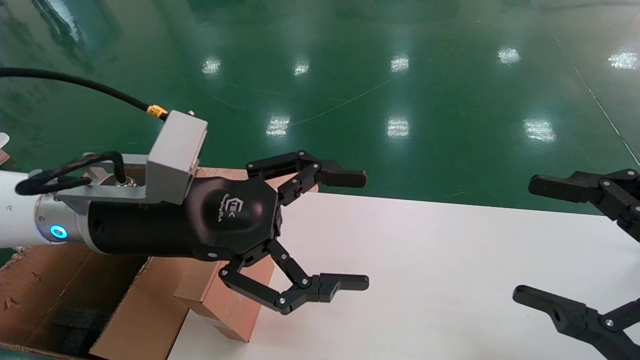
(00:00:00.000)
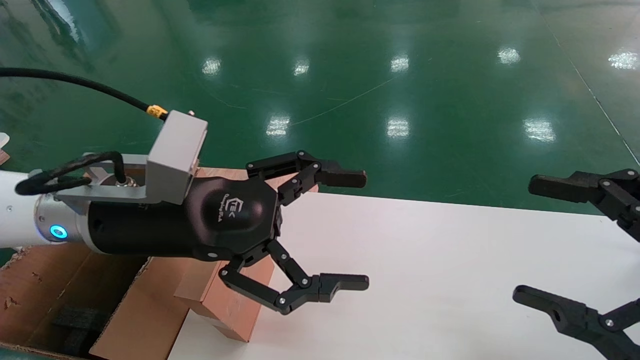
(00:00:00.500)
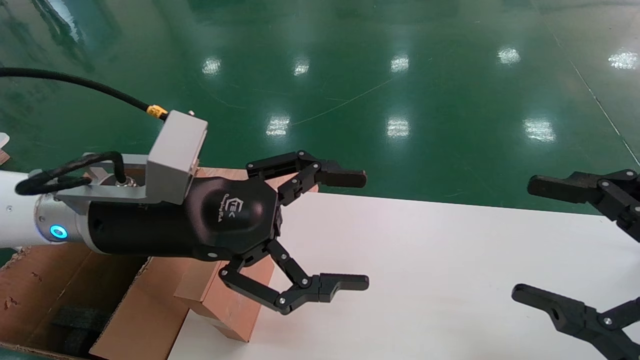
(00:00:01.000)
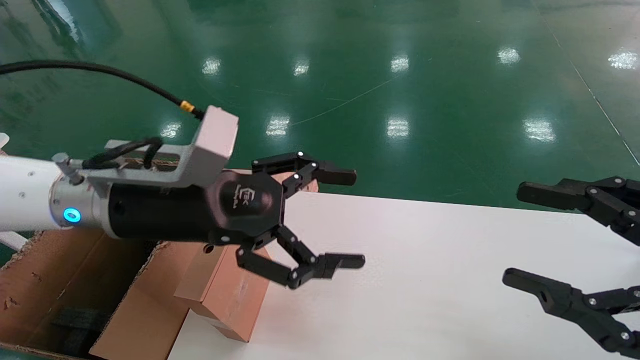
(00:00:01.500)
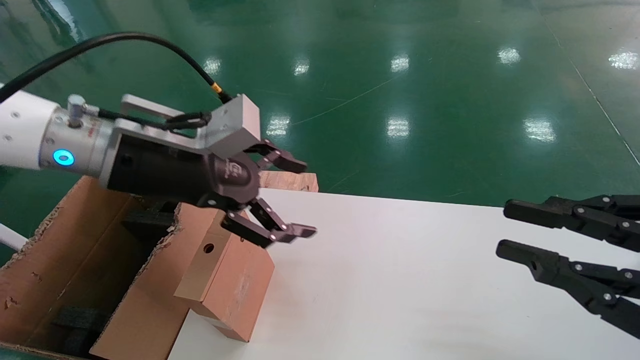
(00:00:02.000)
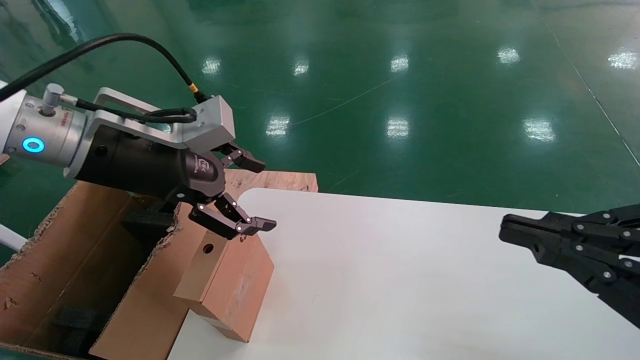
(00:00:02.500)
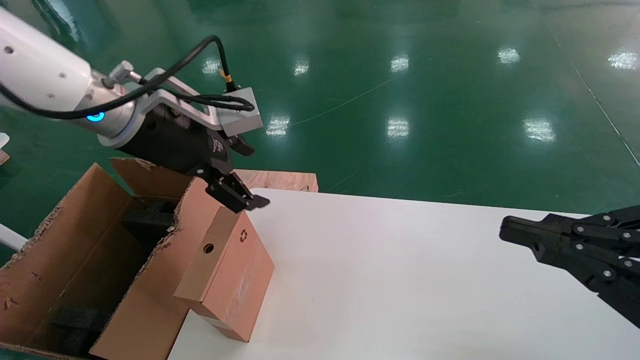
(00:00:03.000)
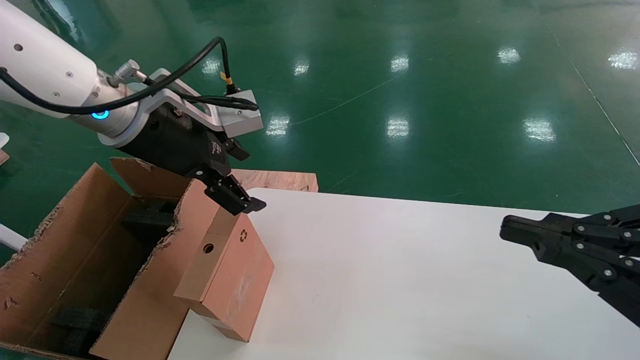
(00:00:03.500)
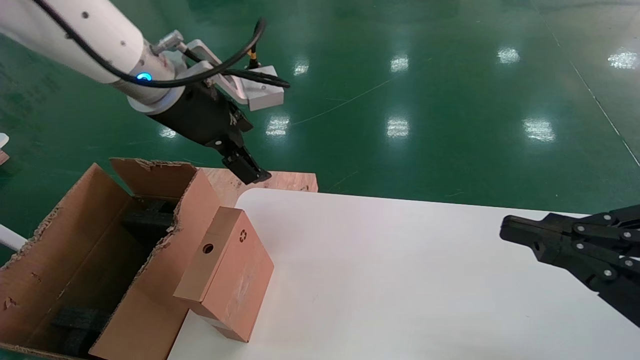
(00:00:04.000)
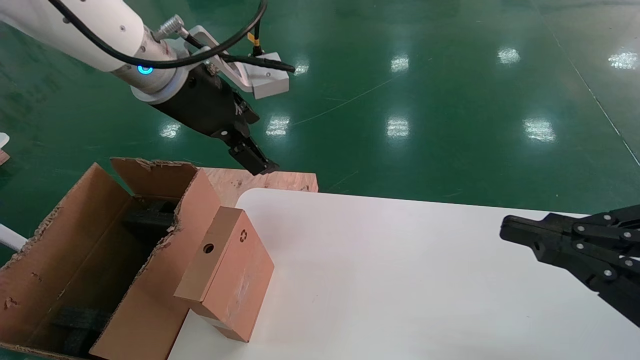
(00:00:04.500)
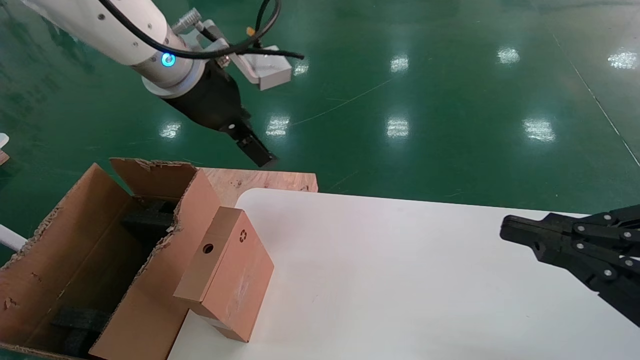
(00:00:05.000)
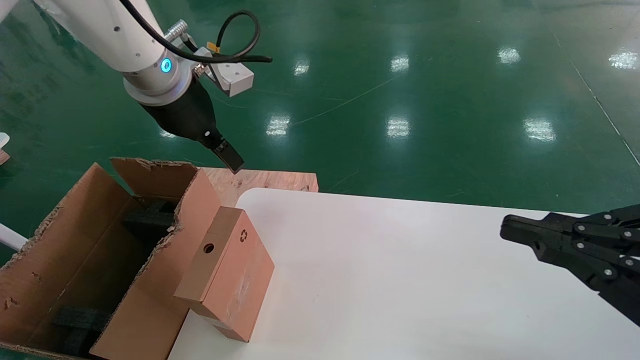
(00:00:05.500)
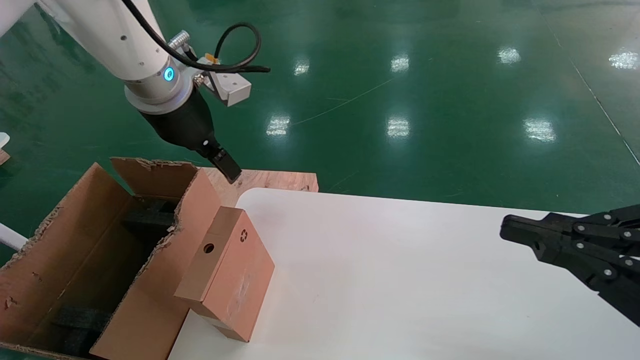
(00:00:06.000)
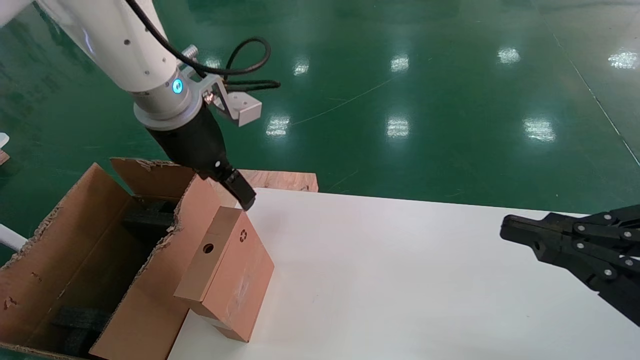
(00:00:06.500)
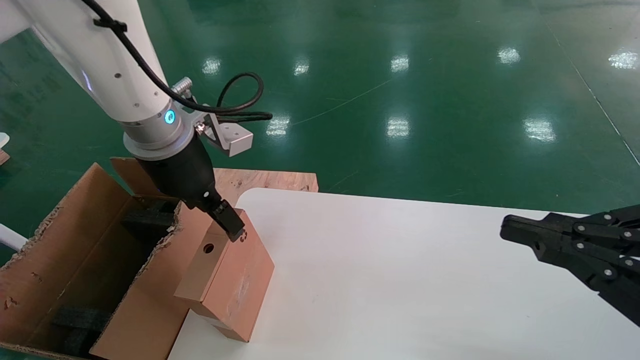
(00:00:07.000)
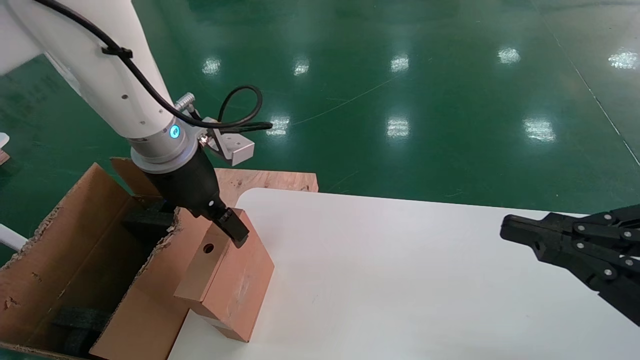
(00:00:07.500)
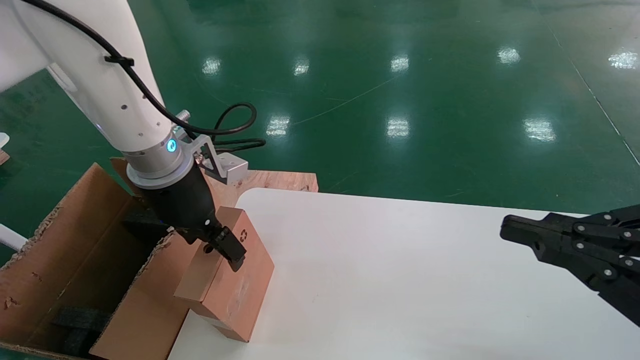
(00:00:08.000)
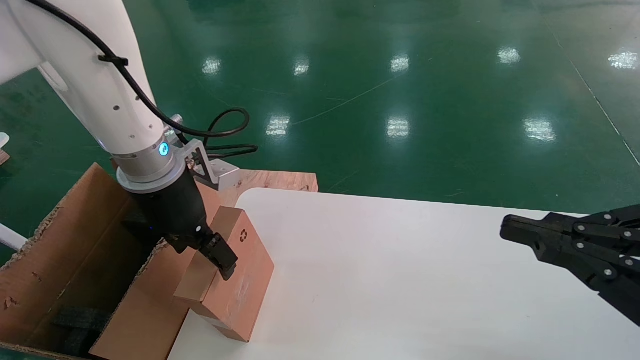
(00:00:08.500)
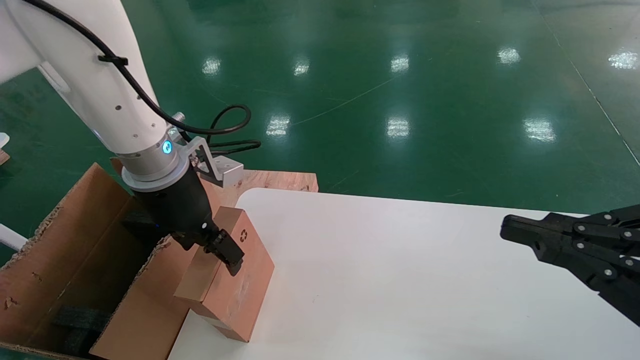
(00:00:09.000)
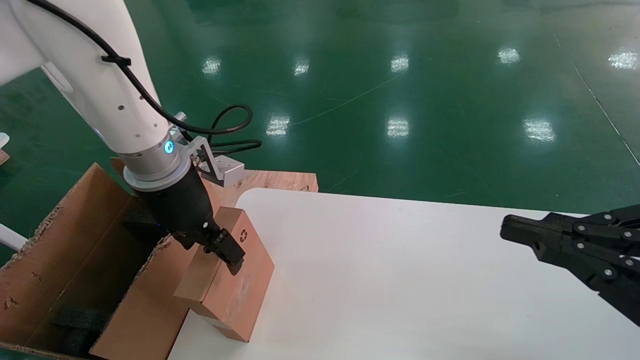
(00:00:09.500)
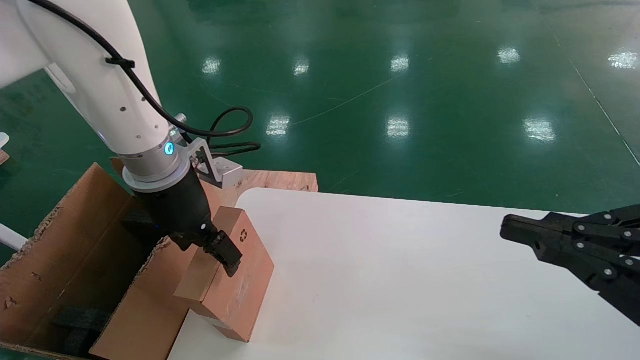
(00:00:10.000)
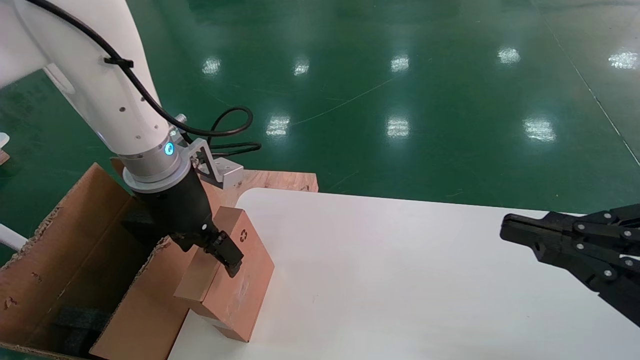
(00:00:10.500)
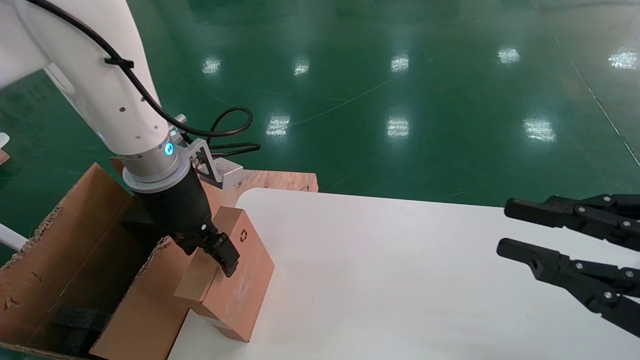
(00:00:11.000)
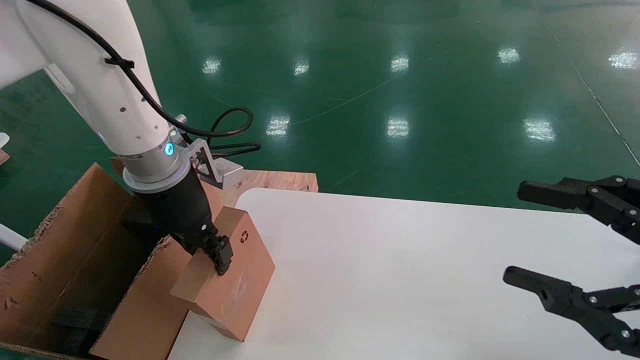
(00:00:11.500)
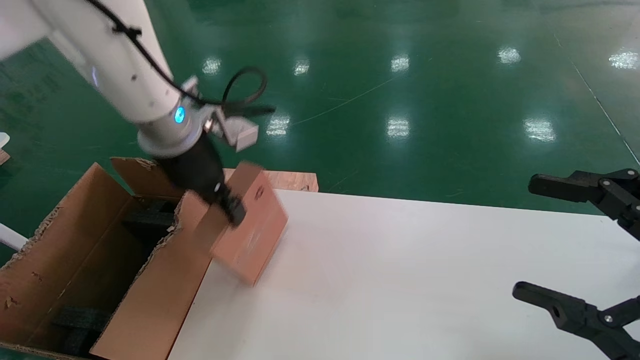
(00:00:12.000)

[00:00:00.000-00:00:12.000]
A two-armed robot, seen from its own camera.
Task of the whole recording: place the small box on the table into the large box on the left.
Step, 00:00:02.000 to 00:00:11.500: Pick up the mouse and the power cord paper box.
00:00:00.000 to 00:00:02.000: The left gripper shifts by roughly 5 cm. Meanwhile the right gripper closes.
00:00:02.000 to 00:00:04.000: The right gripper closes up. Meanwhile the left gripper goes approximately 10 cm upward and forward.
00:00:06.000 to 00:00:08.000: The left gripper moves downward, approximately 10 cm.
00:00:08.000 to 00:00:10.000: Neither gripper changes place.
00:00:10.000 to 00:00:12.000: The left gripper goes approximately 5 cm upward, and closes up; the right gripper opens its fingers.

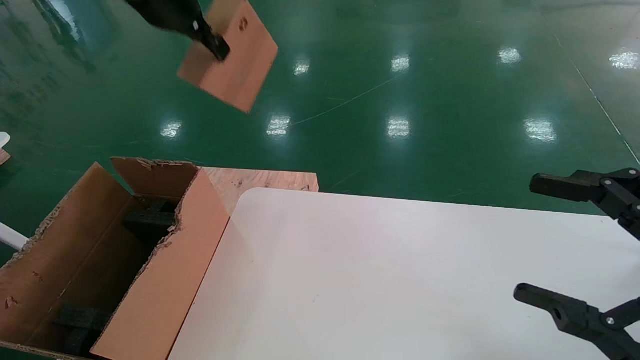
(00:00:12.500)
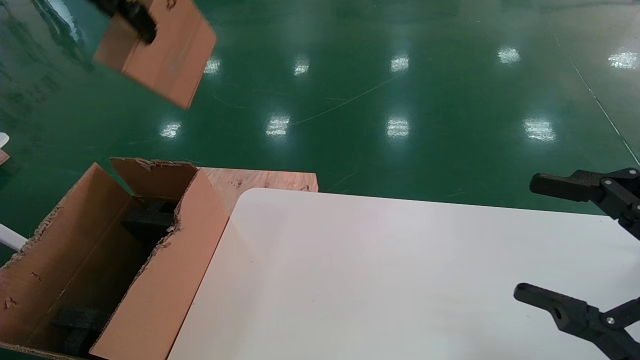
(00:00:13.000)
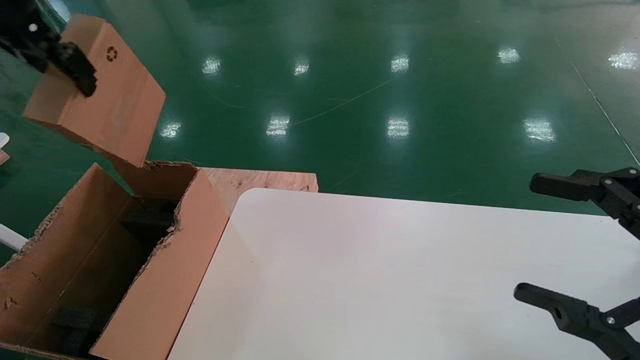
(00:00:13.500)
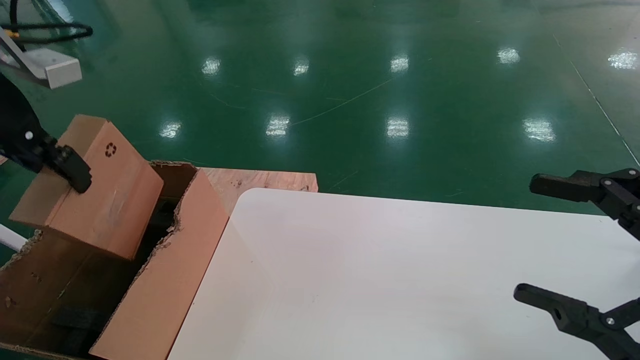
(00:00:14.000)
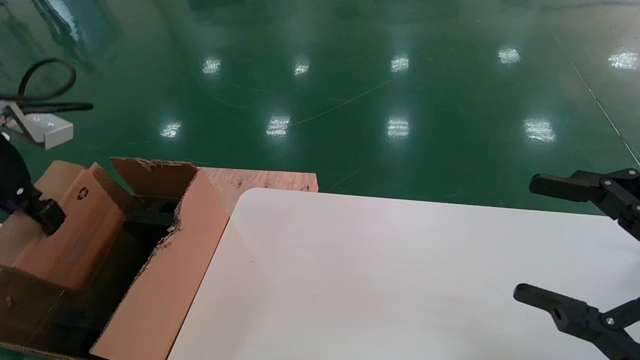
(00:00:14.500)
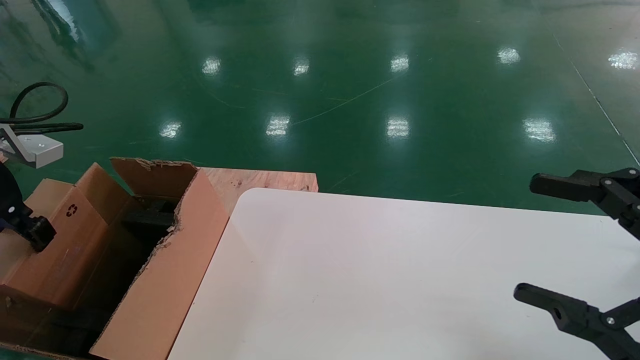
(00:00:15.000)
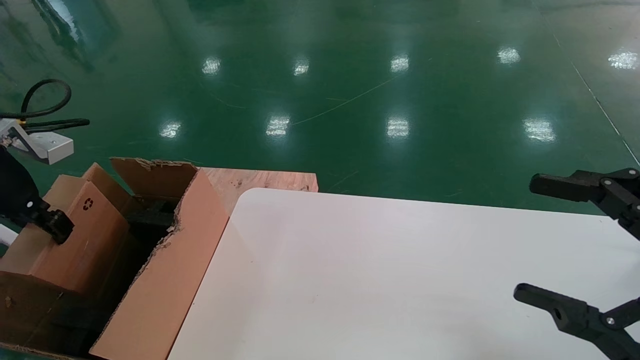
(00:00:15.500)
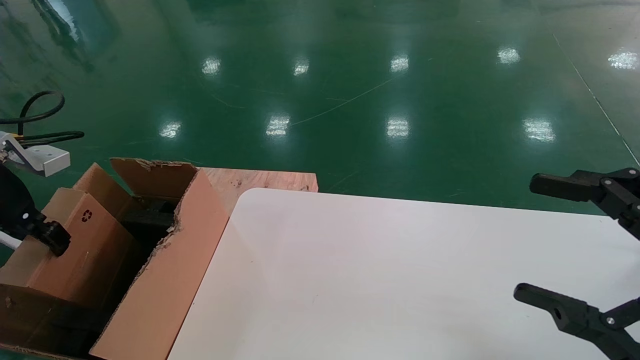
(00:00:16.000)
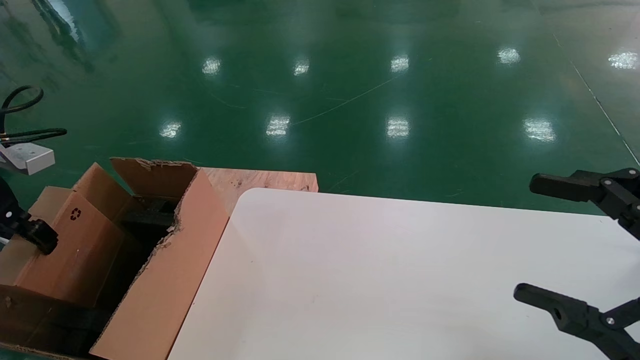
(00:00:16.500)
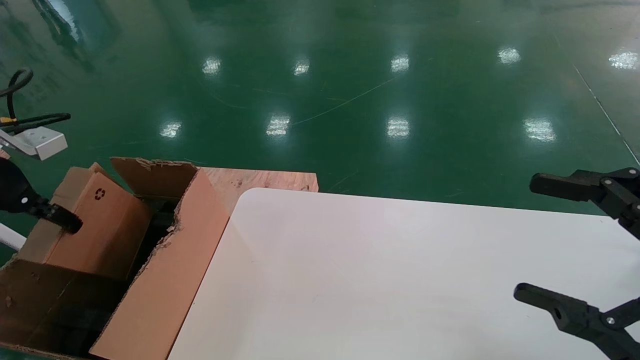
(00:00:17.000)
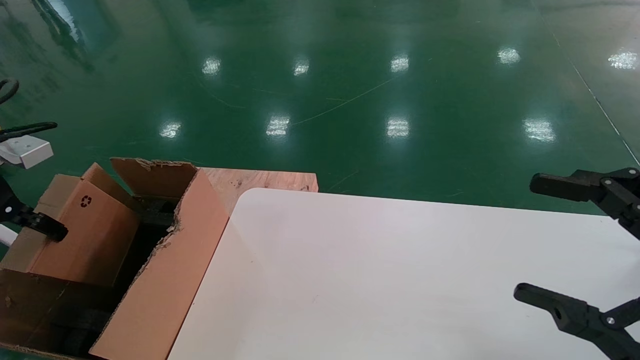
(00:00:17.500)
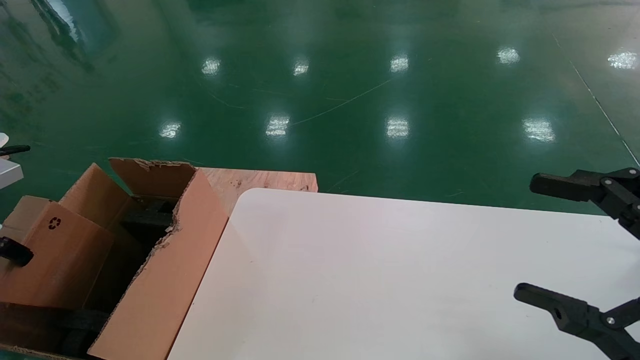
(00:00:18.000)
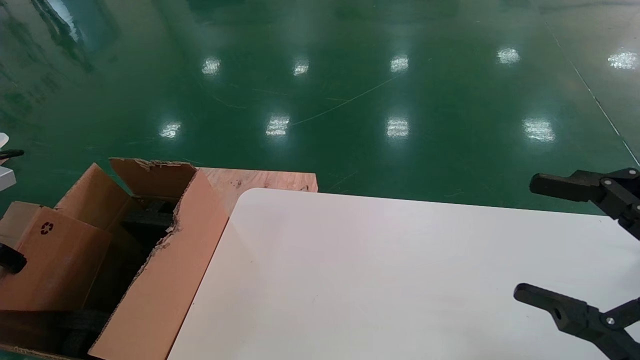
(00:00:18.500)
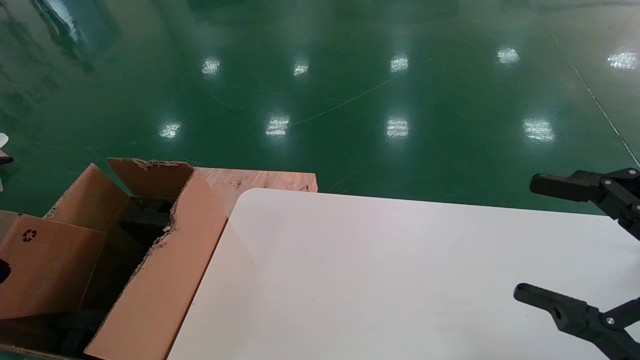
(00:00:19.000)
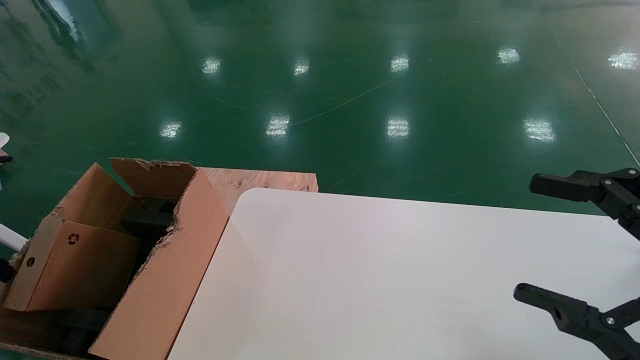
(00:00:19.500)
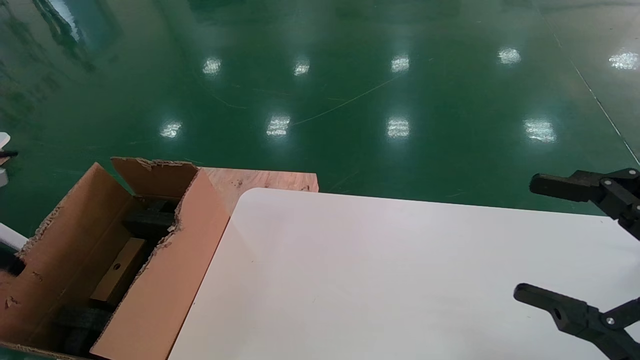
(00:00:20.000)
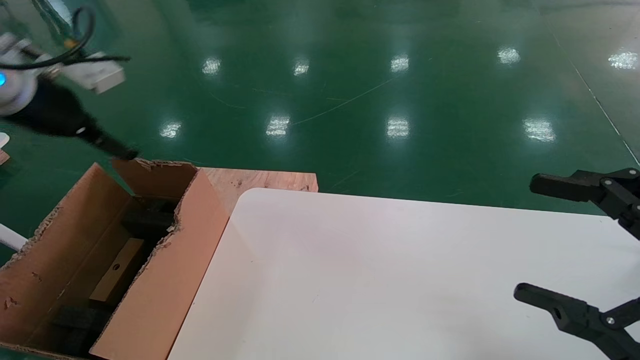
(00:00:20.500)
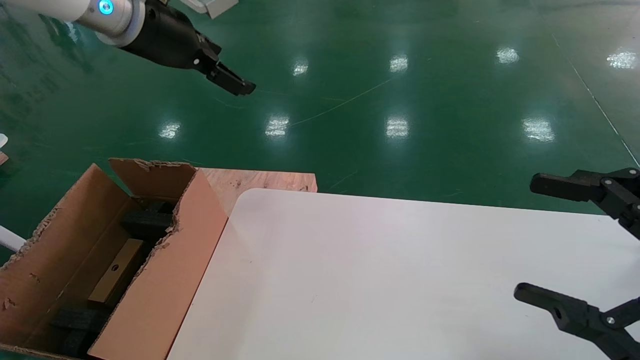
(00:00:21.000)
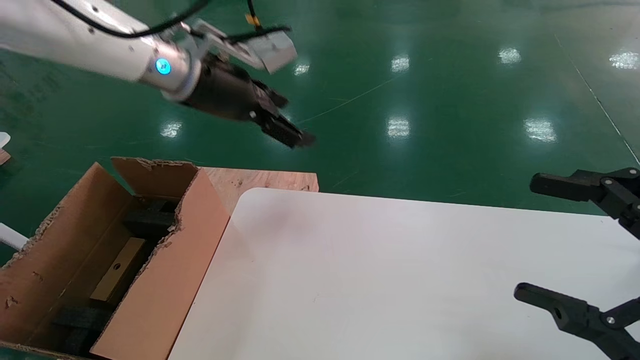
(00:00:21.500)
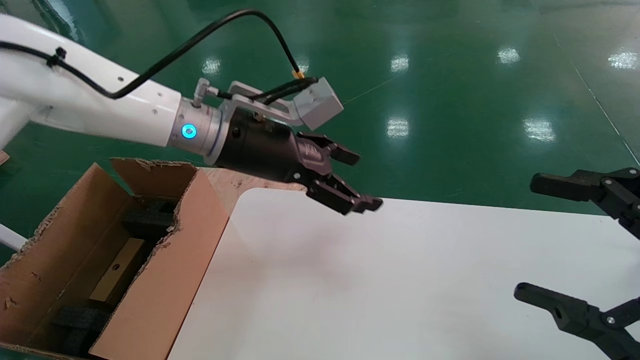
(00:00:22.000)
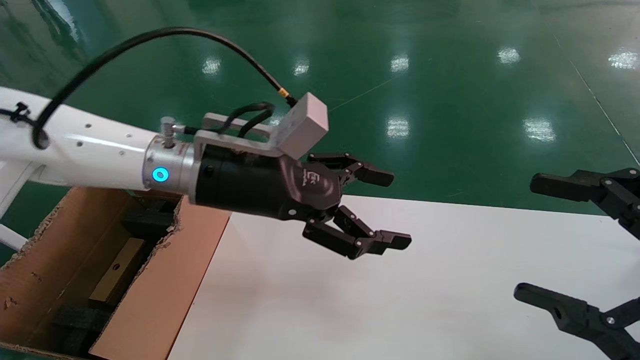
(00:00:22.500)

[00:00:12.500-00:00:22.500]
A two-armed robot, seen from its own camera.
Task of the whole recording: place the small box on the table into the large box on the left.
Step, 00:00:12.500 to 00:00:19.500: Place the mouse and the power cord paper box into the container.
00:00:12.500 to 00:00:14.500: The left gripper moves to the left, backward and downward, about 25 cm.
00:00:14.500 to 00:00:16.500: The left gripper is displaced to the left and downward by approximately 10 cm.
00:00:16.500 to 00:00:18.500: The left gripper changes place by some 5 cm.
00:00:18.500 to 00:00:20.500: The left gripper heads forward, upward and to the right, covering some 20 cm, and opens up.
00:00:20.500 to 00:00:22.500: The left gripper shifts roughly 25 cm to the right.
